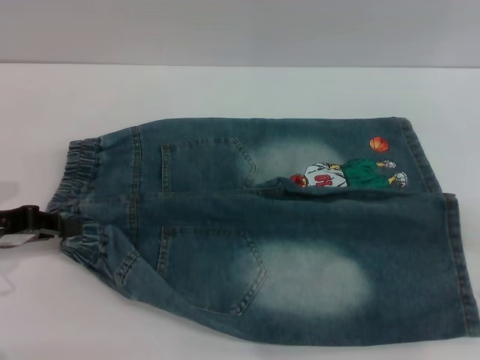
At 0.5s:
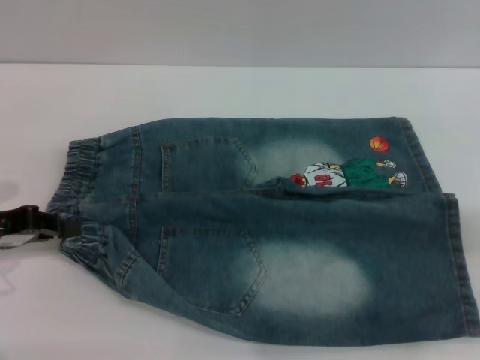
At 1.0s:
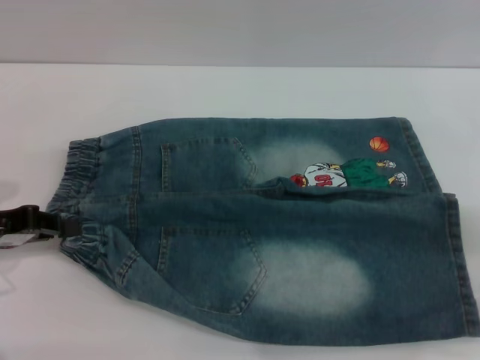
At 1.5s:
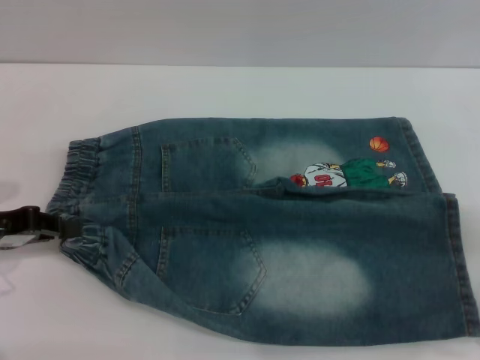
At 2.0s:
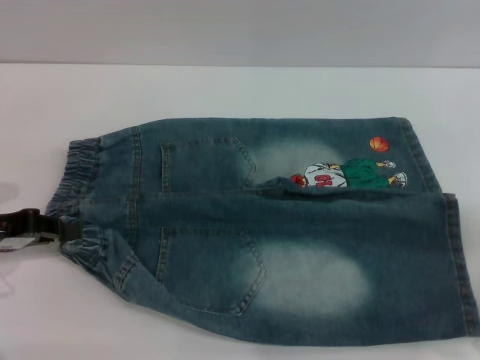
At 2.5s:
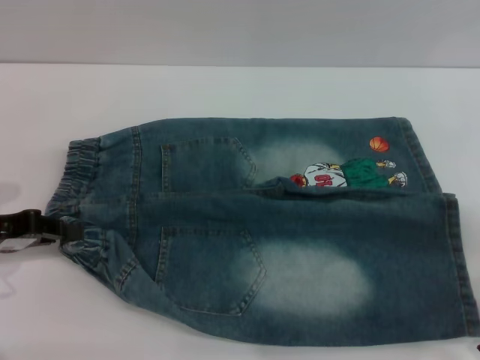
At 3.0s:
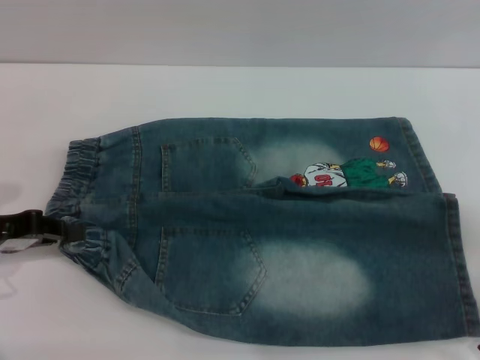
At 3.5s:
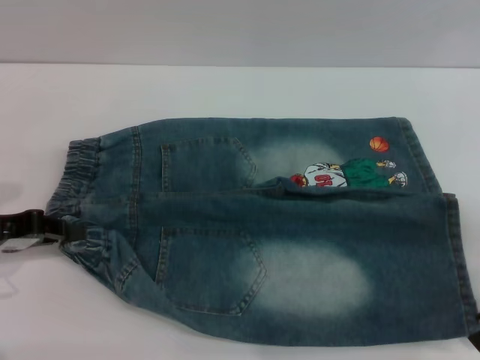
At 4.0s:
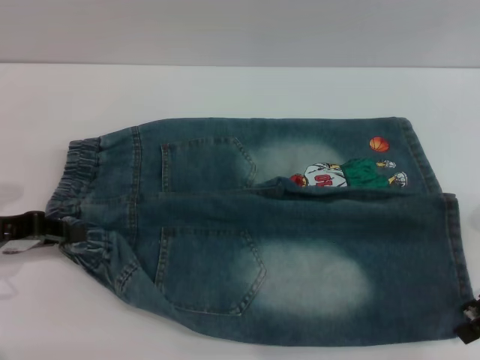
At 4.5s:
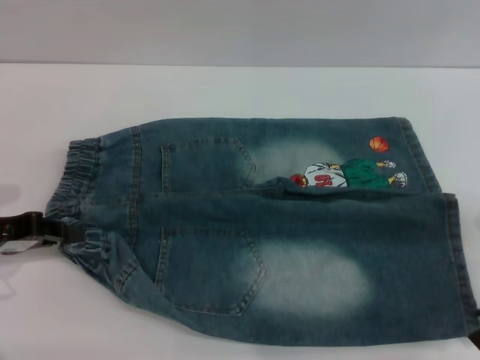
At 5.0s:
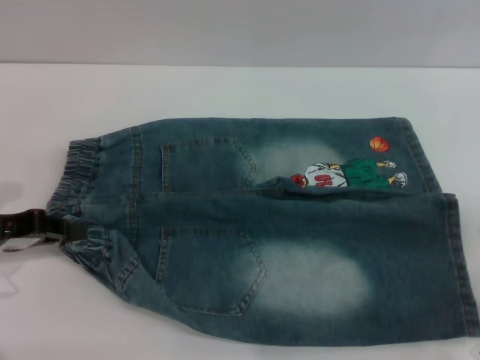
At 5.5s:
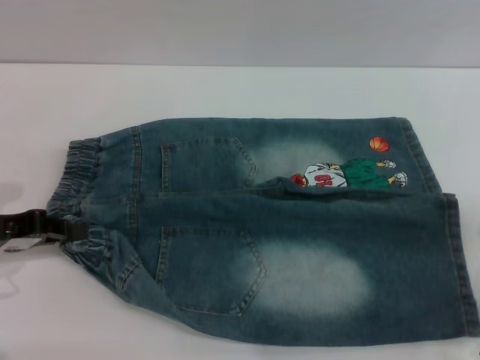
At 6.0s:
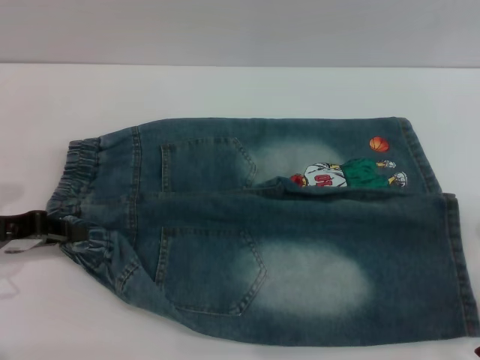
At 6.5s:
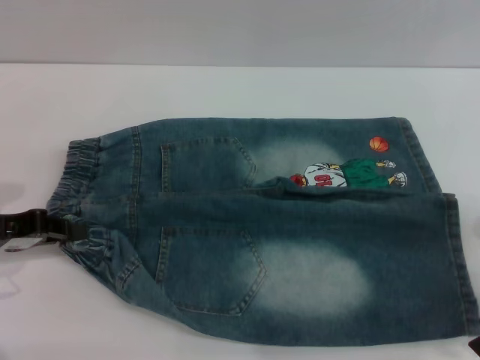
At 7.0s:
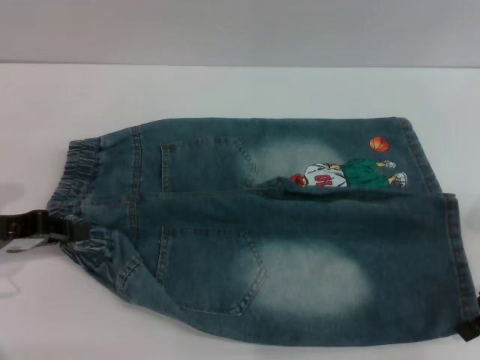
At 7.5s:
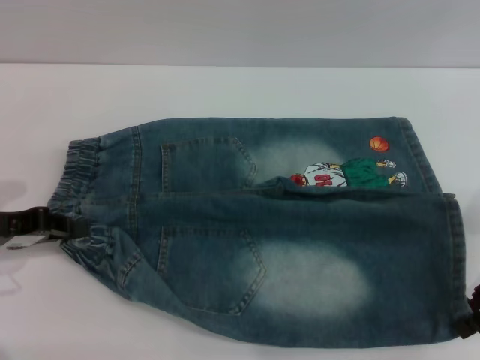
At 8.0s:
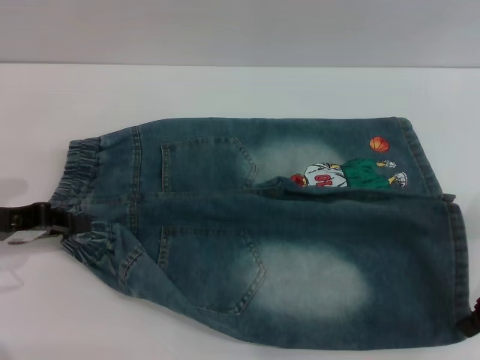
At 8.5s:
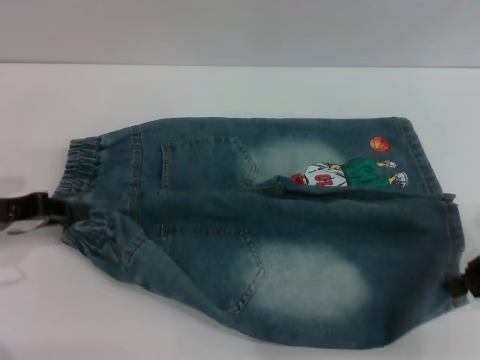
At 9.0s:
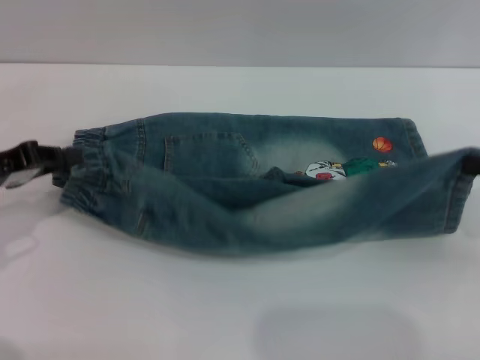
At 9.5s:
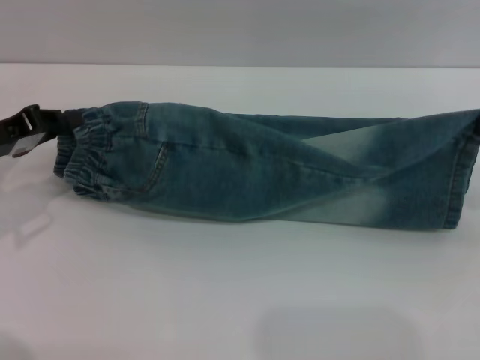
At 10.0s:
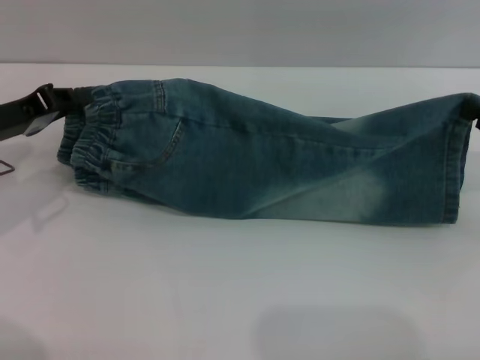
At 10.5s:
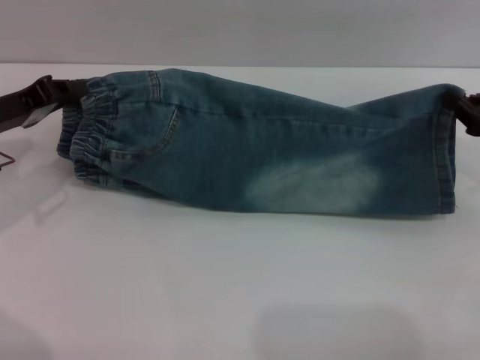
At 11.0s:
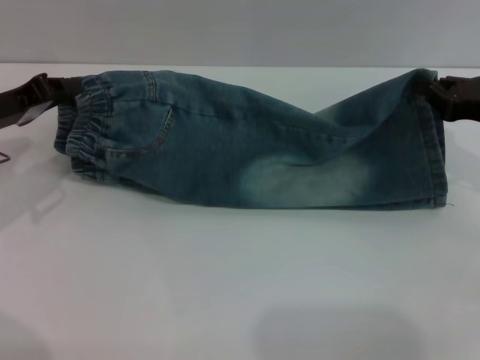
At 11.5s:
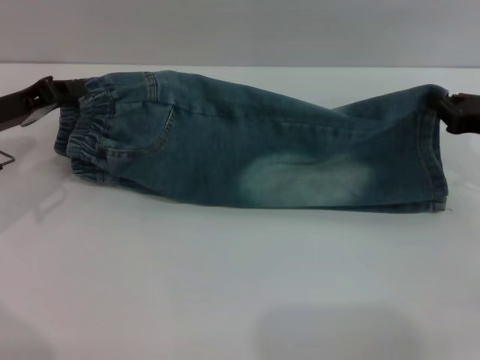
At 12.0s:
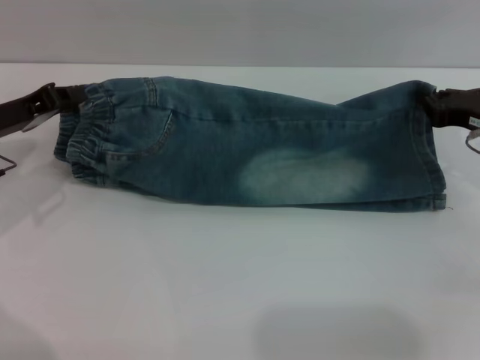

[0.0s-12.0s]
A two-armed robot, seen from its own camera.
0.0s to 2.0s: The grippers move only a little.
2.0s to 4.0s: The grippers move only a little.
6.0s to 8.0s: The right gripper closes.
8.0s to 10.0s: The right gripper moves some 5 cm. The left gripper is displaced forward by some 5 cm.
10.0s to 12.0s: The right gripper travels forward and to the left by about 10 cm.

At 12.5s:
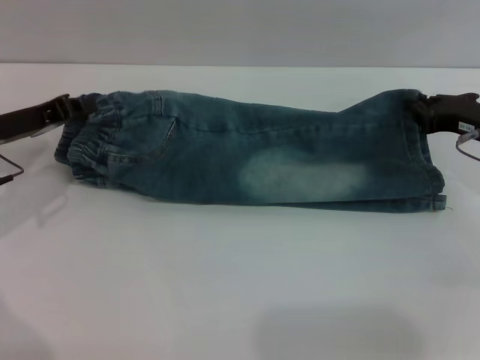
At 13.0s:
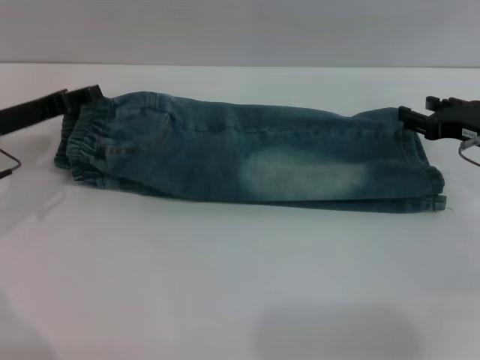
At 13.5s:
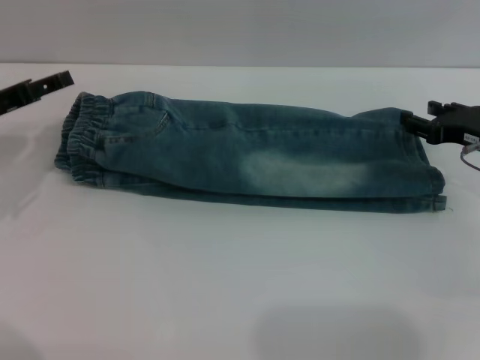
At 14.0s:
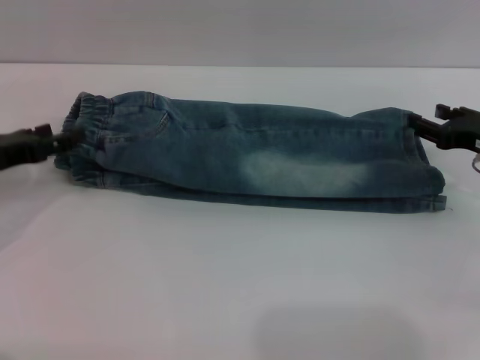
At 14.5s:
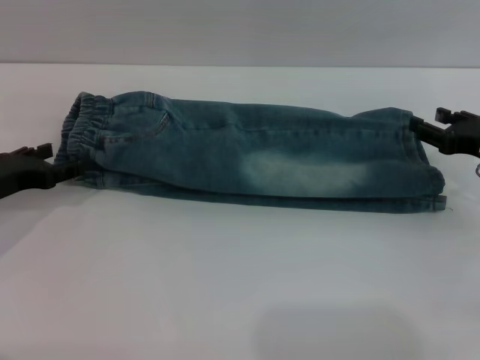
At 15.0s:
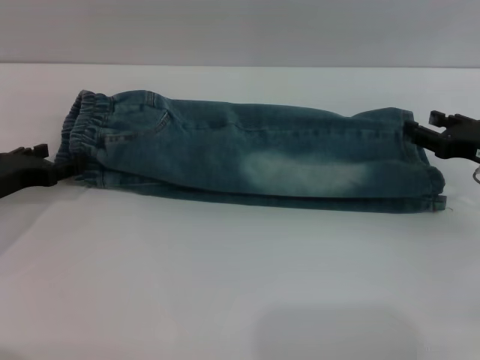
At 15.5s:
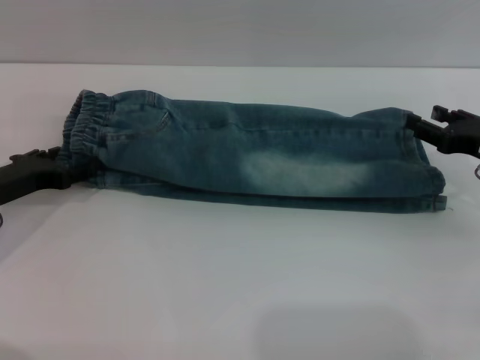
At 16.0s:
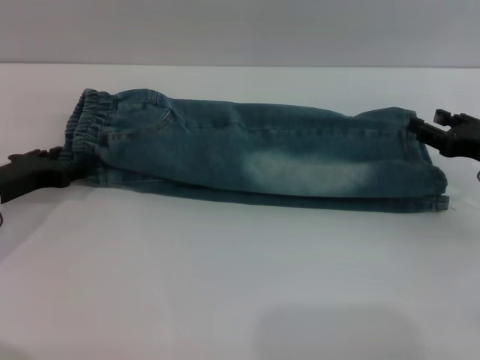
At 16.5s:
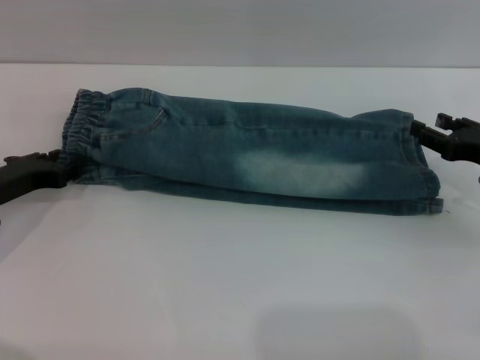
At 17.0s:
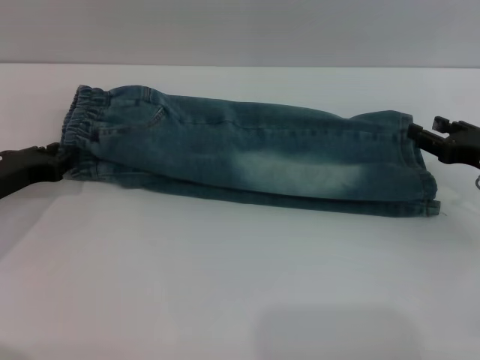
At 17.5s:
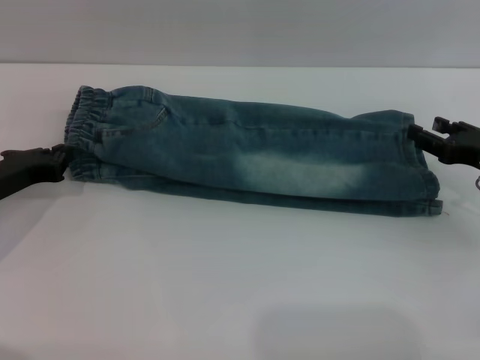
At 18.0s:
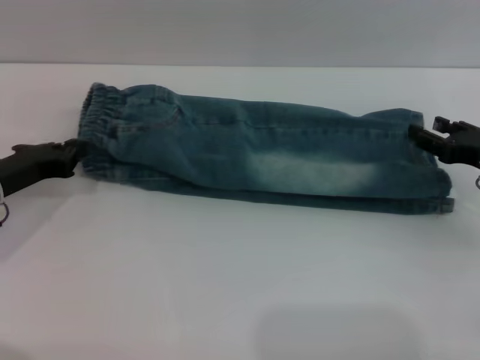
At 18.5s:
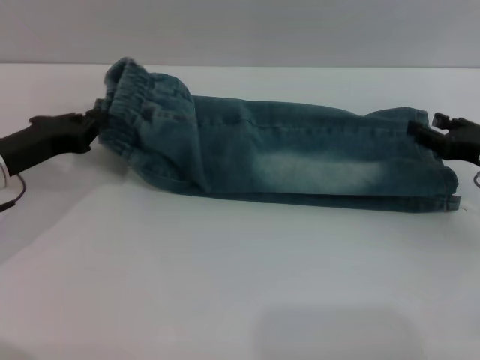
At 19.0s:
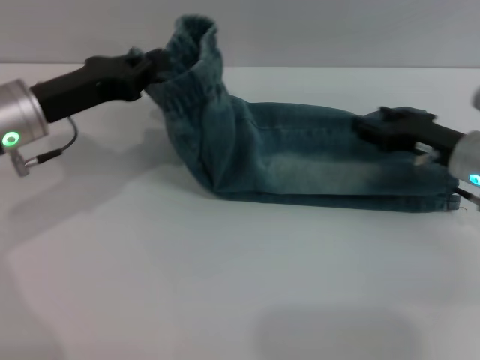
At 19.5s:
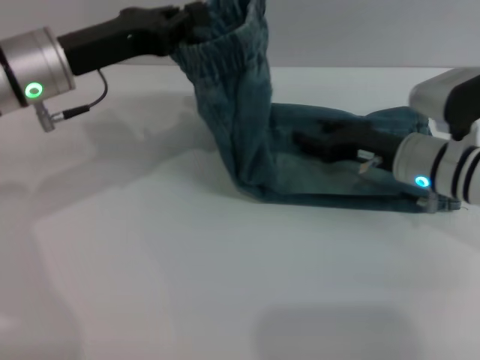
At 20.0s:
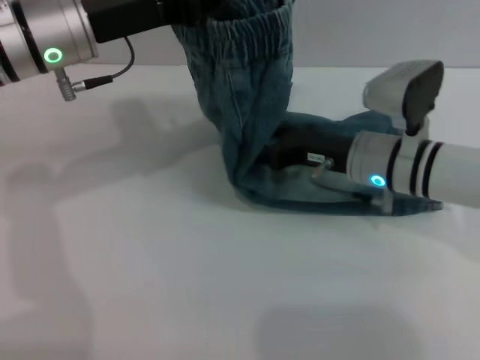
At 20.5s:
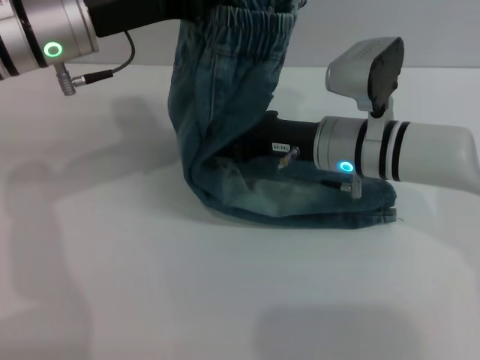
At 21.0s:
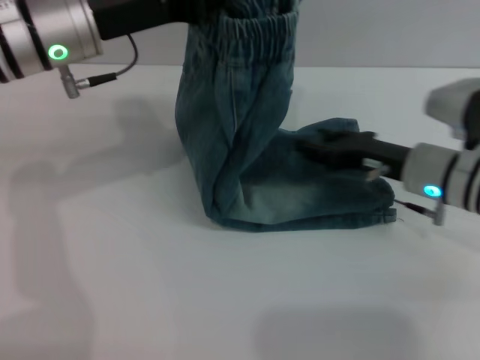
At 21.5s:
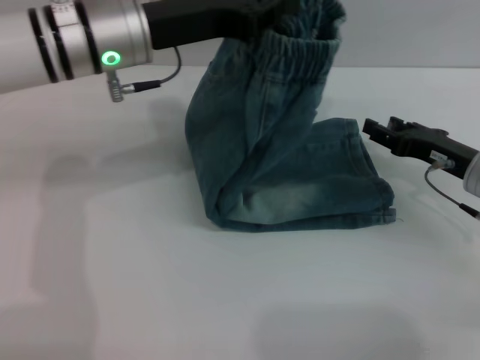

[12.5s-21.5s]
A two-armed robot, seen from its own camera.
12.5s to 14.5s: The right gripper opens its fingers; the left gripper changes place by some 5 cm, and opens its fingers.
14.5s to 17.0s: The left gripper closes up.
17.0s to 19.5s: The left gripper travels upward, to the right and forward by some 15 cm, and closes. Meanwhile the right gripper is displaced to the left by some 10 cm.
19.5s to 21.5s: Both grippers move to the right, roughly 5 cm.

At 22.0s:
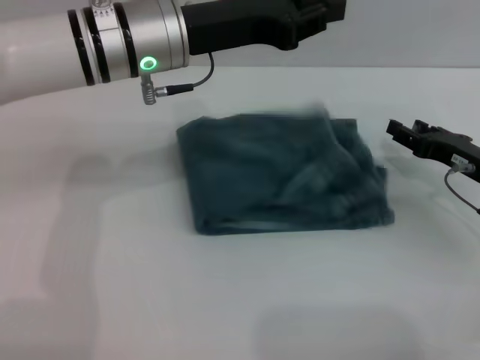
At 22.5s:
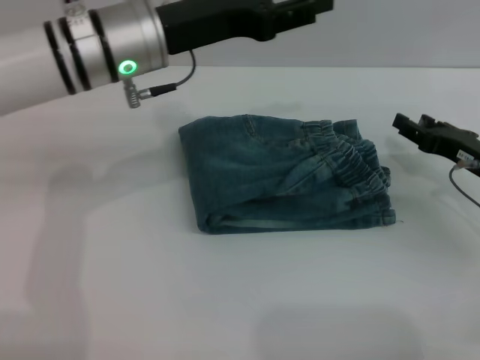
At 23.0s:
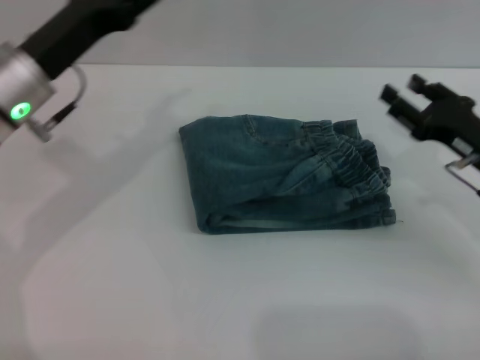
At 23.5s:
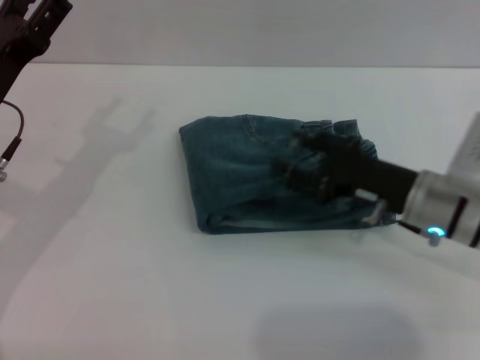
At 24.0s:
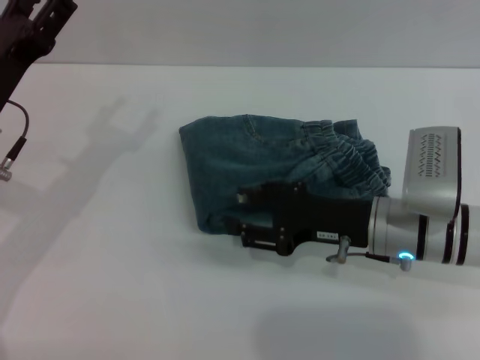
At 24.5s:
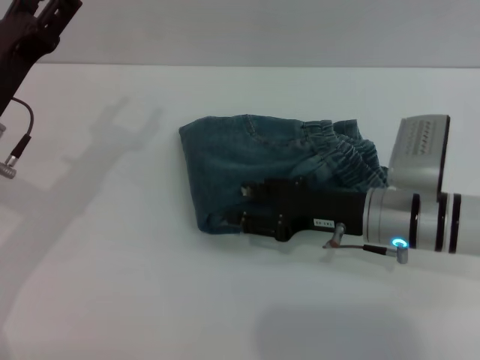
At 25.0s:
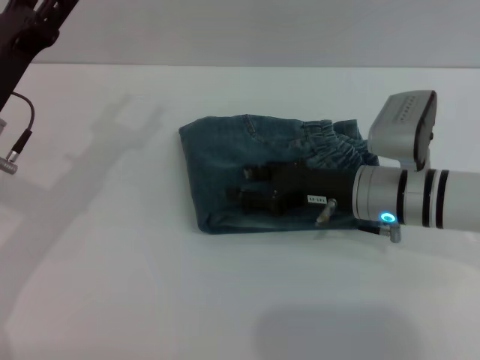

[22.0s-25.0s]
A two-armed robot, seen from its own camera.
22.0s to 23.5s: The right gripper heads to the left, covering some 10 cm. The left gripper is displaced to the left, downward and backward by some 20 cm, and opens.
23.5s to 25.0s: The right gripper changes place by roughly 5 cm.
